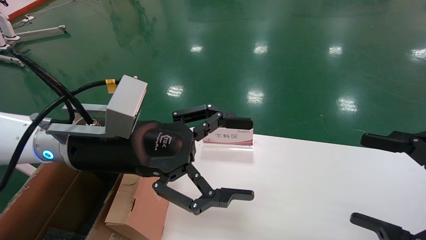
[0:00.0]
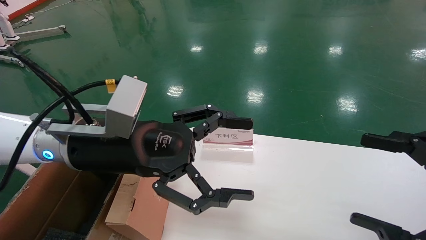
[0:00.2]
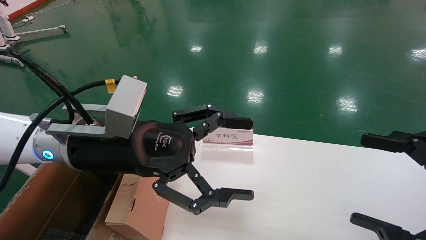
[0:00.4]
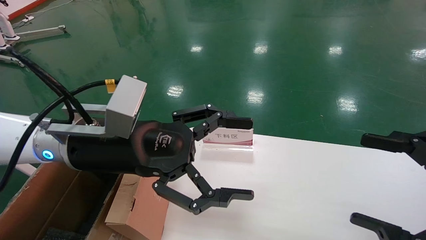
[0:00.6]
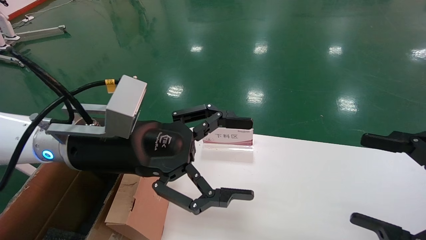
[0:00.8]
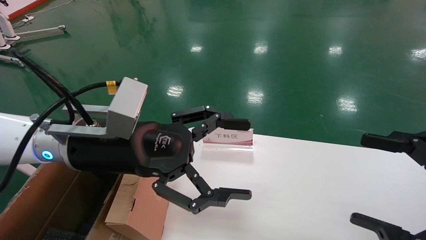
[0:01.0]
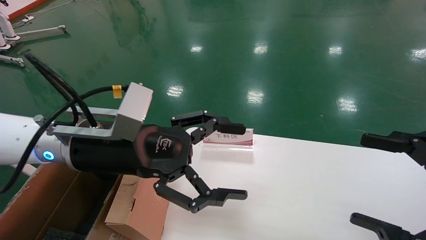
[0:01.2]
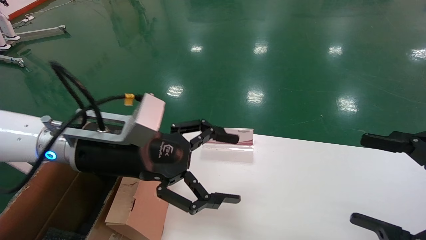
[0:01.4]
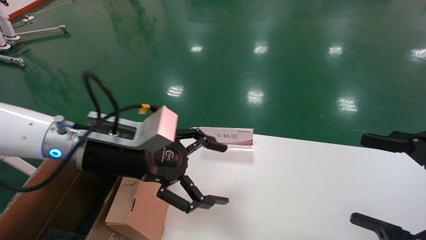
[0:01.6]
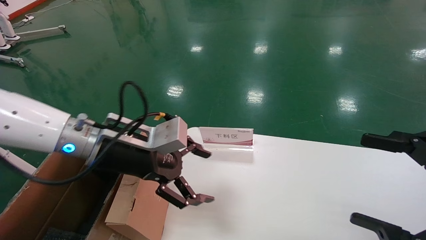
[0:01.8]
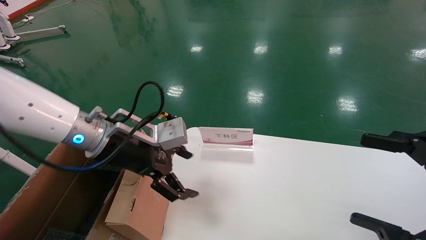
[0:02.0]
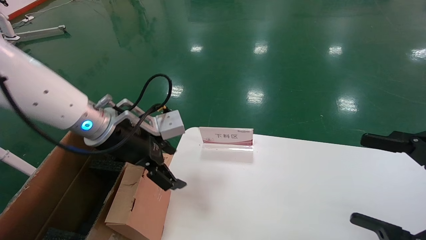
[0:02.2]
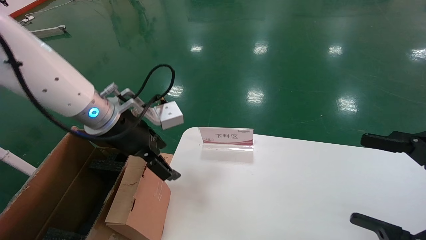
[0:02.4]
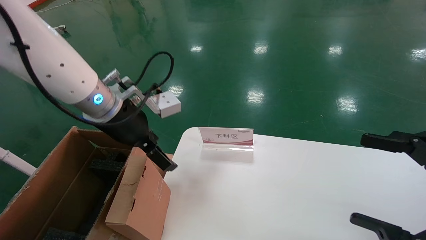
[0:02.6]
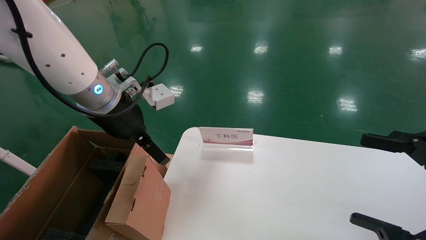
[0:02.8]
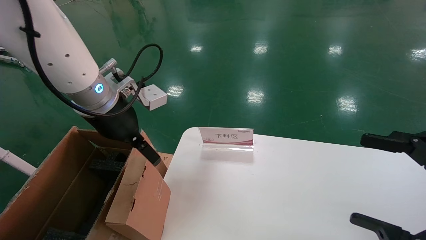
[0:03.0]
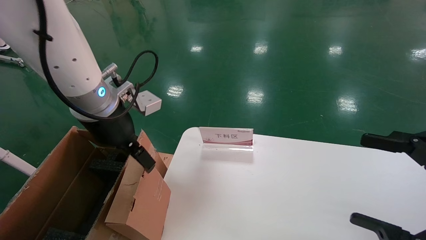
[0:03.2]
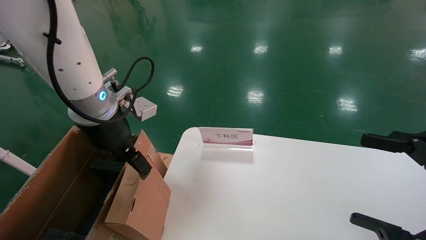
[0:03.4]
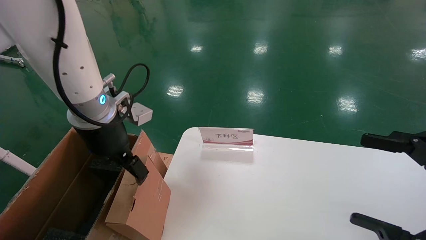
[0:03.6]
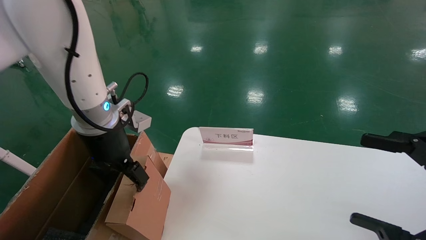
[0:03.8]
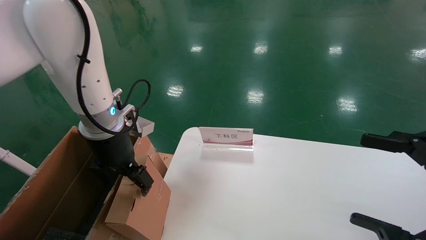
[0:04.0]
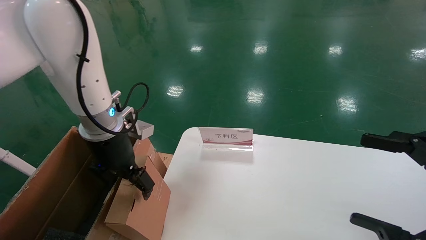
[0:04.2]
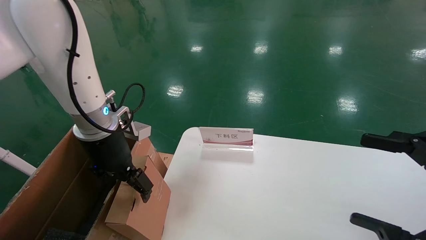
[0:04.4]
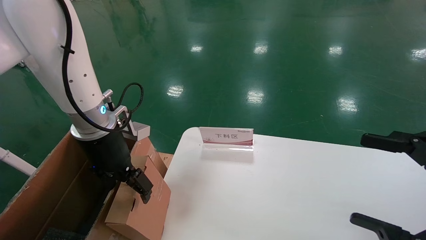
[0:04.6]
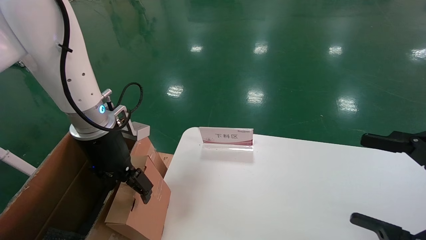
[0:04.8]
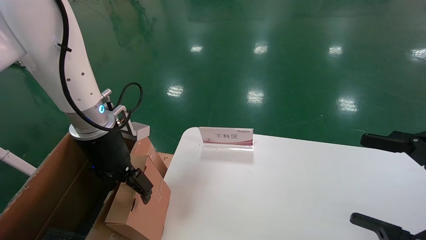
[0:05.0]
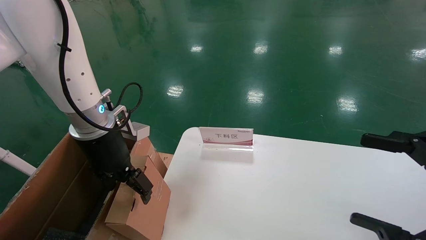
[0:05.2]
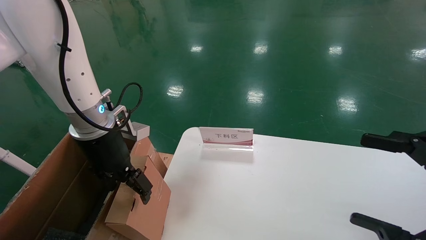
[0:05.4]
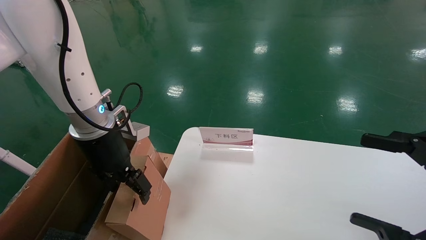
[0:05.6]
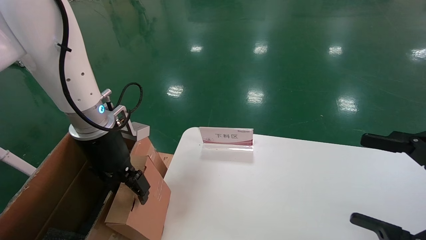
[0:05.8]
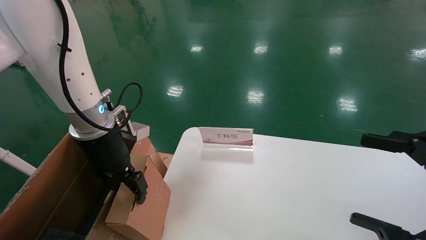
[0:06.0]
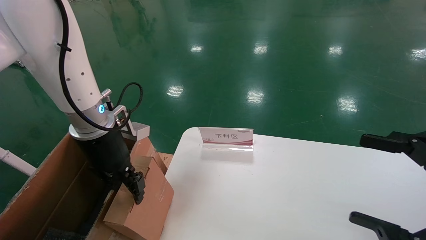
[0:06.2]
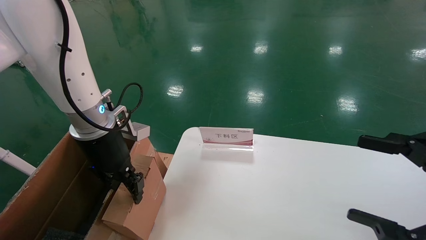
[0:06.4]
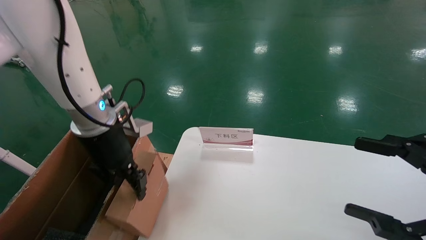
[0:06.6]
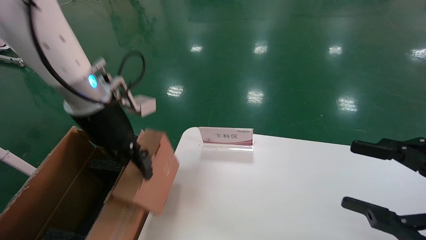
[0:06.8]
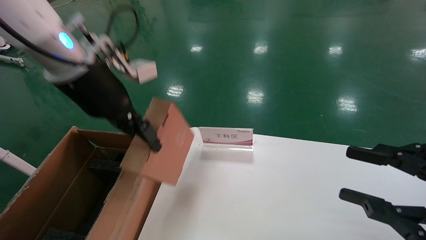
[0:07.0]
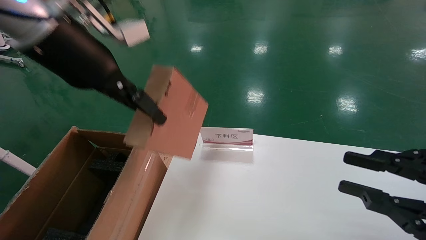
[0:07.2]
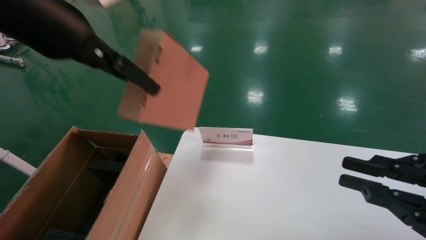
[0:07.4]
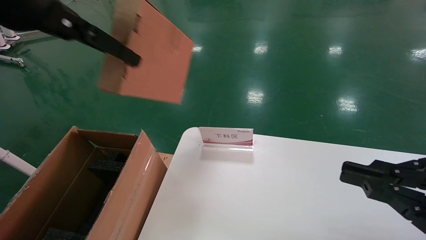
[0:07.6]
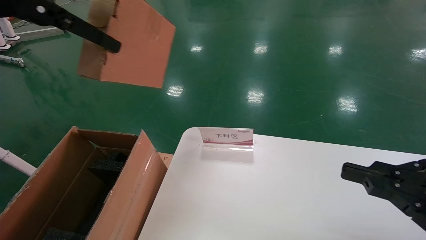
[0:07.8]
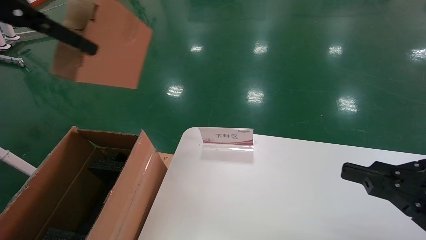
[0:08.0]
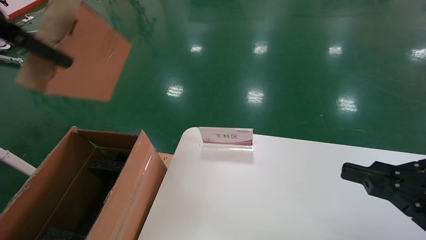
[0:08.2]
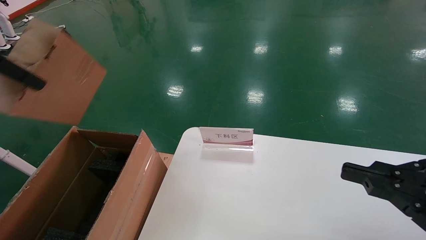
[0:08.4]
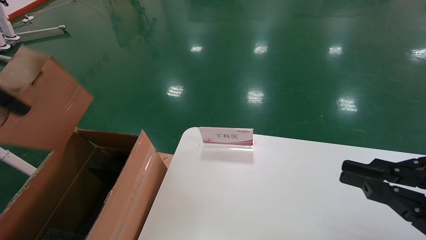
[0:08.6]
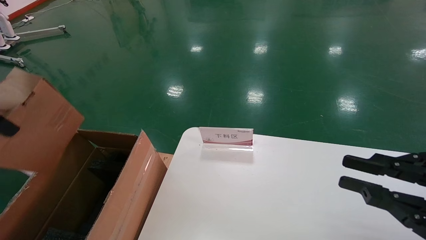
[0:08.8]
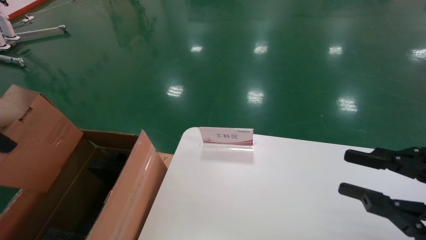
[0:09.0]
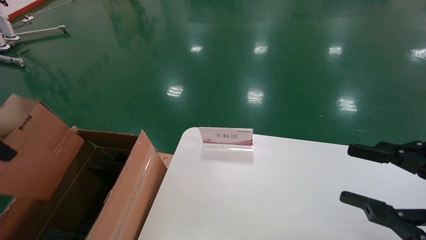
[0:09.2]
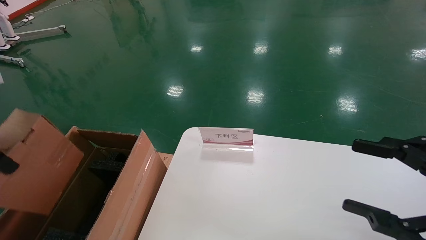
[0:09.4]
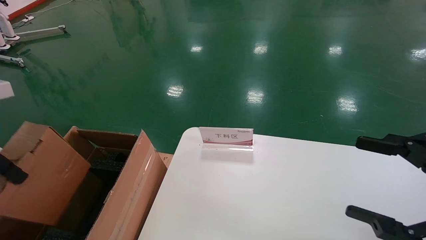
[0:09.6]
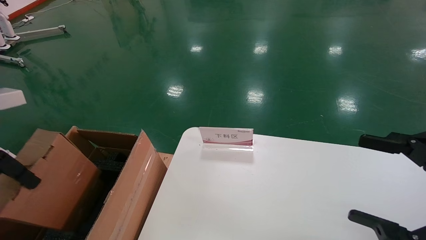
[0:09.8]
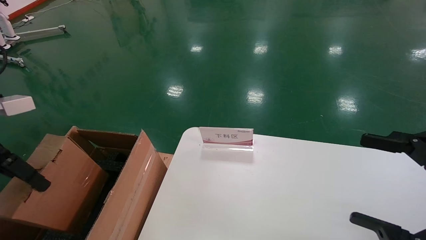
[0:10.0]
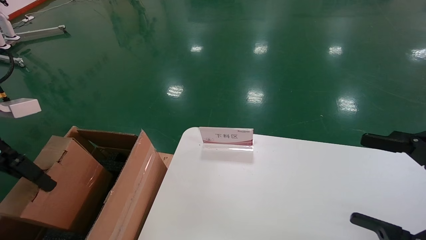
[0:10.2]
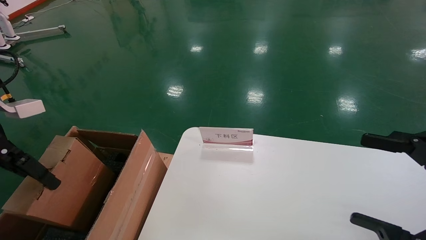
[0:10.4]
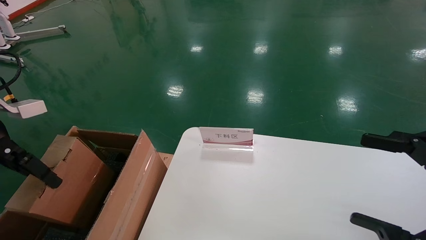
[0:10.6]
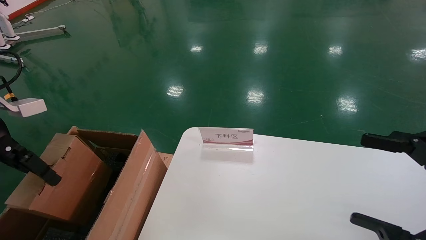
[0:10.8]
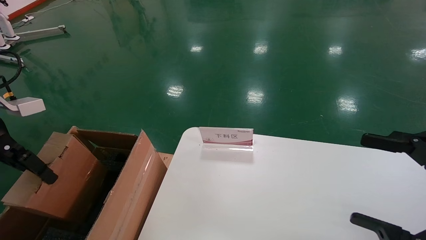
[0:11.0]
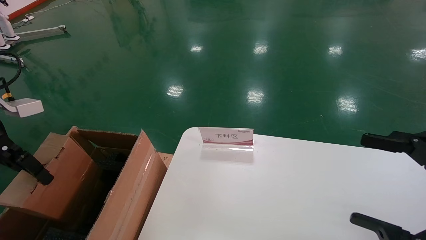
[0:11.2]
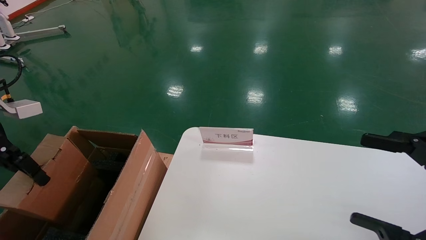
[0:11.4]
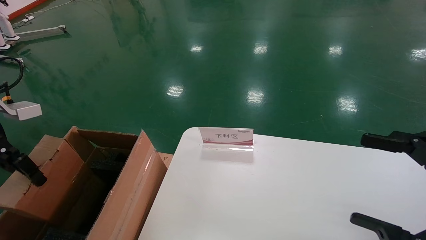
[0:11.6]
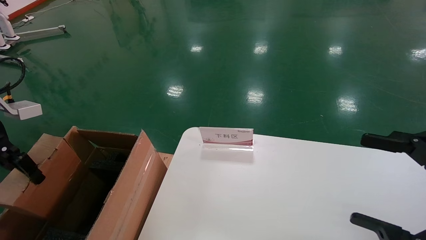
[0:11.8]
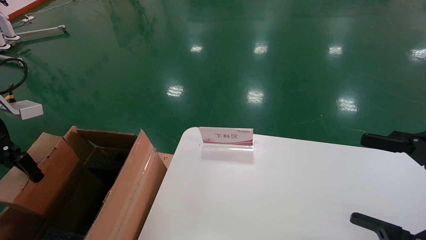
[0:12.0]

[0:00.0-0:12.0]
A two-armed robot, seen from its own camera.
Task of the whole recording: pick up the small cardboard box and load it into the large cardboard box.
Step, 0:01.4 to 0:06.4: Pick up the mouse and power cord box.
0:01.6 to 0:03.0: The left gripper heads upward, covering approximately 5 cm.
0:03.0 to 0:04.4: The left gripper is displaced downward by roughly 5 cm.
0:04.4 to 0:06.0: Neither gripper changes place.
0:06.0 to 0:07.6: The left gripper is displaced upward and backward by some 25 cm, and closes up. Meanwhile the right gripper closes its fingers.
0:07.6 to 0:09.0: The left gripper is displaced to the left, backward and downward by approximately 15 cm.
0:09.0 to 0:10.4: The right gripper opens its fingers. Meanwhile the left gripper is displaced downward, forward and to the left by roughly 15 cm.
0:10.4 to 0:12.0: The left gripper ends up approximately 5 cm from where it was.

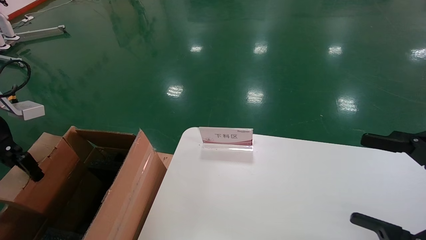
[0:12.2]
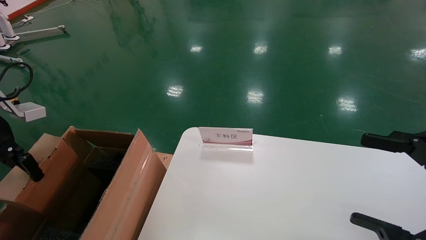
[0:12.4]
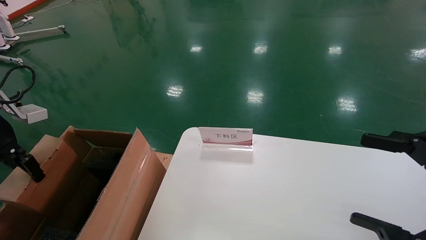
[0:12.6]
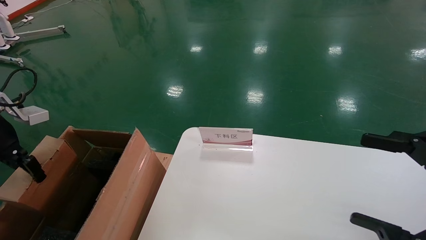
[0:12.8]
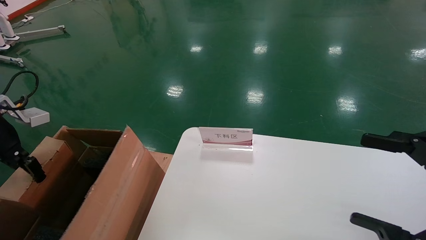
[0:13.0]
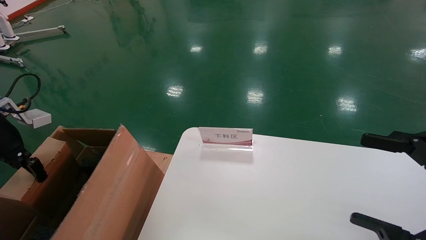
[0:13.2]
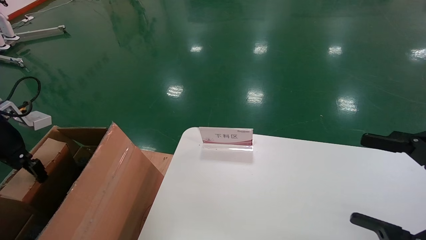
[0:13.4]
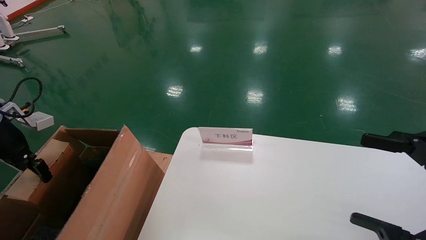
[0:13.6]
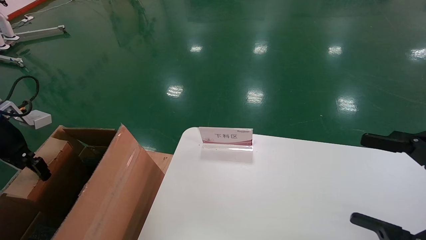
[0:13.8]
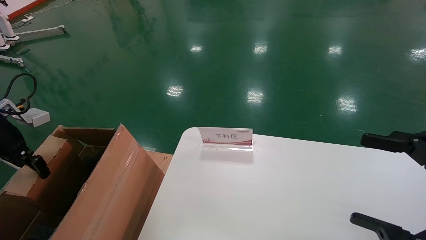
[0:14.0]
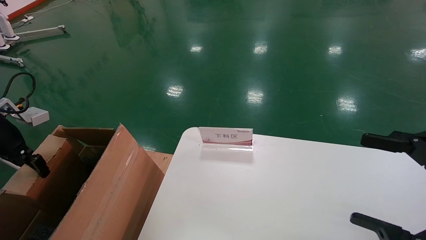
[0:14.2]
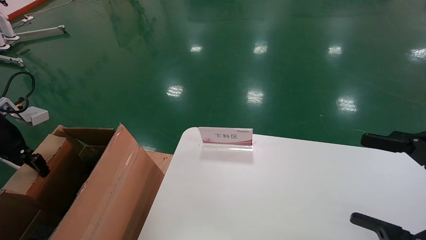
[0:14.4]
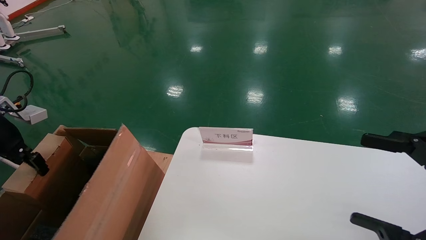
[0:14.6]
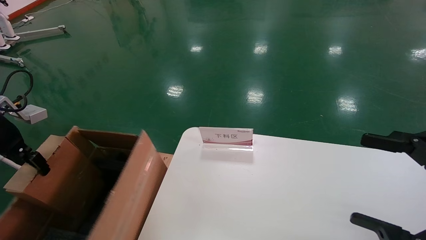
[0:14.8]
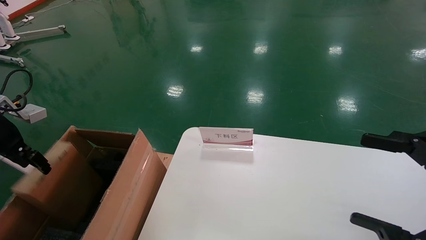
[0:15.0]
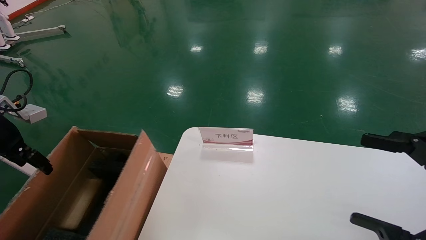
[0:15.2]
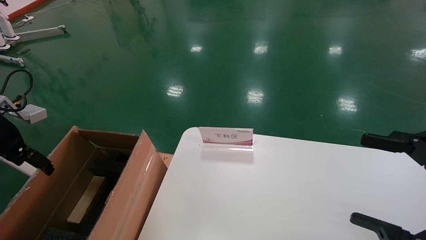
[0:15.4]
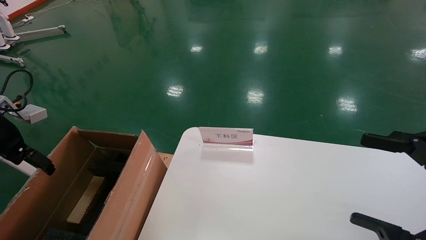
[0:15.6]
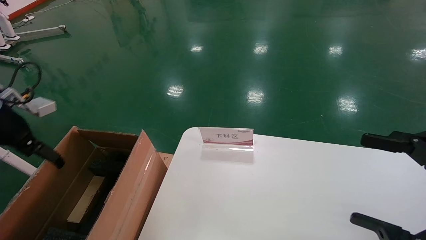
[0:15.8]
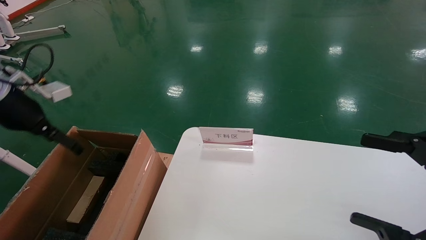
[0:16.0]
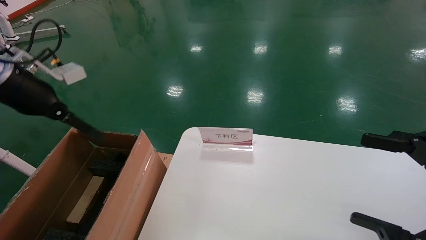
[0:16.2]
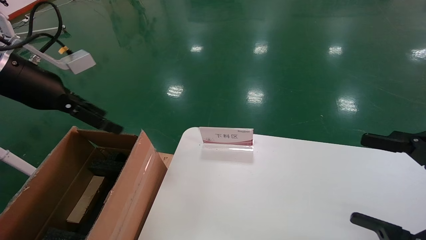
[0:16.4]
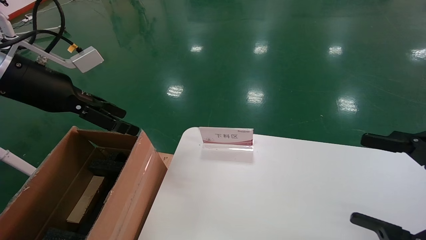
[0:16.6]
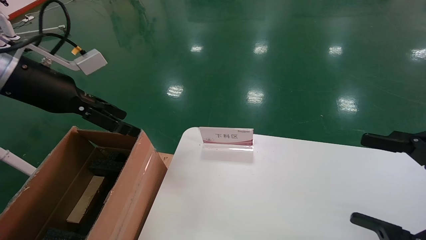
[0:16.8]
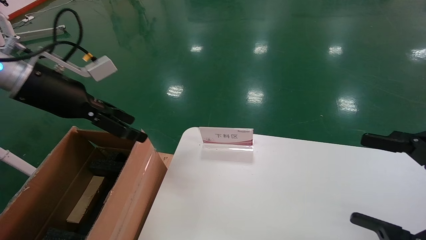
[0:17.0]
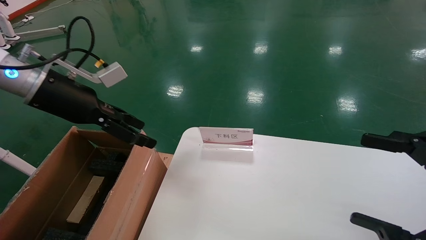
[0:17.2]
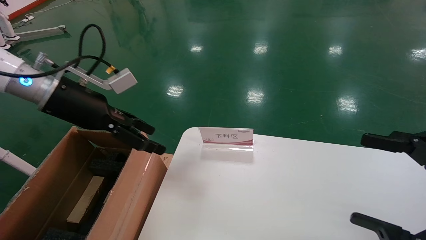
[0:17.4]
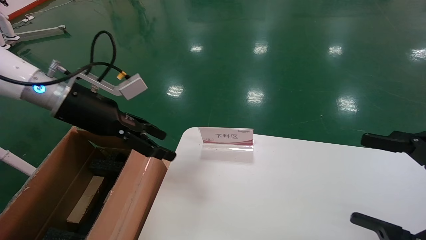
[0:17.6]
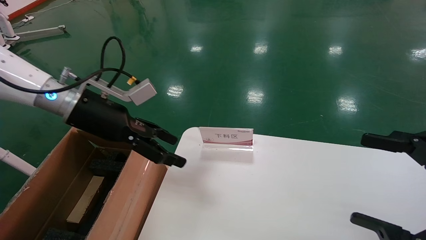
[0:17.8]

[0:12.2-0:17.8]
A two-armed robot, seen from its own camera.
Task of the whole recording: pick up the small cardboard box and load it into the large cardboard box.
Step, 0:12.2 to 0:15.4: Place the mouse and power cord box into the case.
0:12.2 to 0:13.6: The left gripper shifts by about 5 cm.
0:13.6 to 0:15.0: The two grippers keep their place.
0:15.0 to 0:16.4: The left gripper goes roughly 15 cm to the right and upward, and opens its fingers.
0:16.4 to 0:17.8: The left gripper heads to the right and downward, covering some 10 cm.
